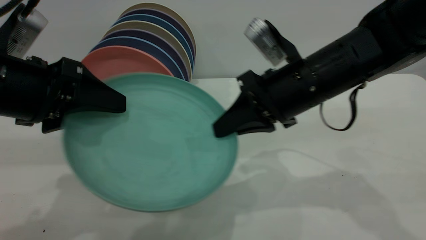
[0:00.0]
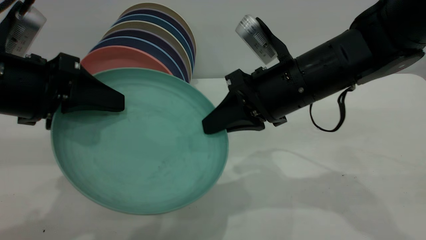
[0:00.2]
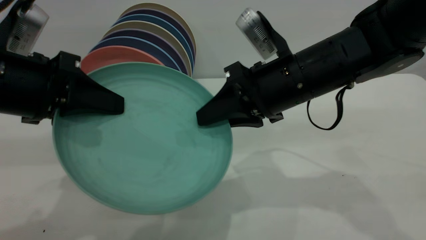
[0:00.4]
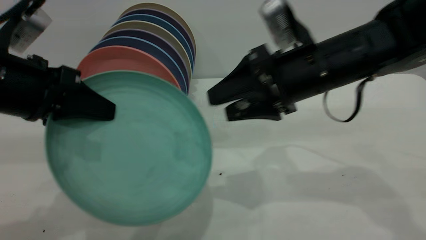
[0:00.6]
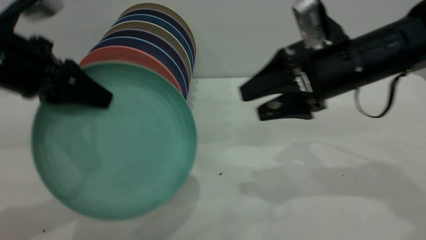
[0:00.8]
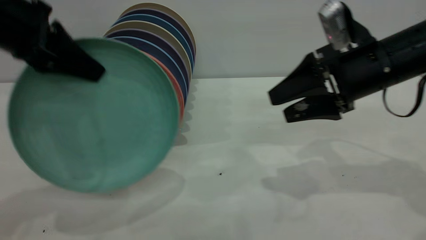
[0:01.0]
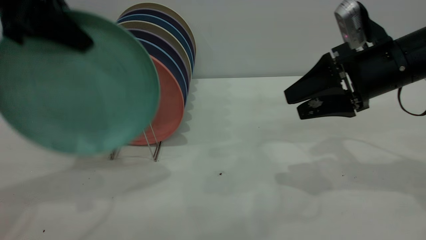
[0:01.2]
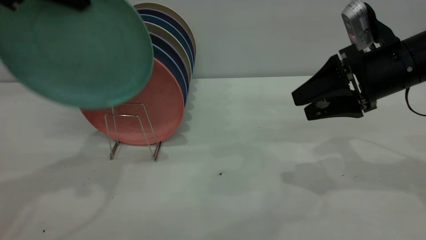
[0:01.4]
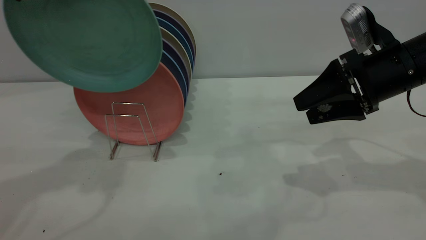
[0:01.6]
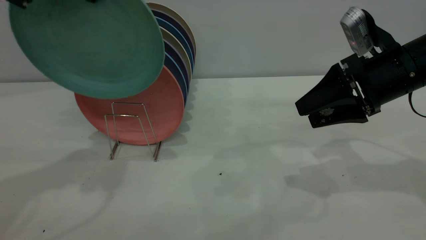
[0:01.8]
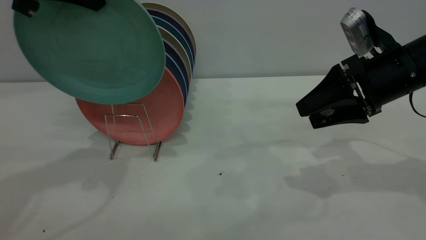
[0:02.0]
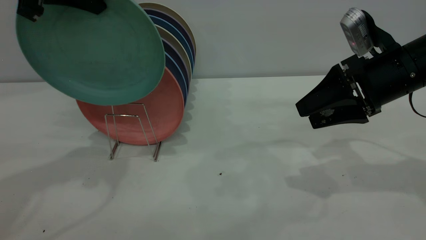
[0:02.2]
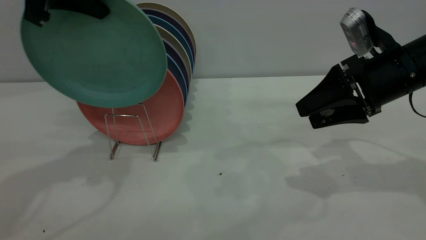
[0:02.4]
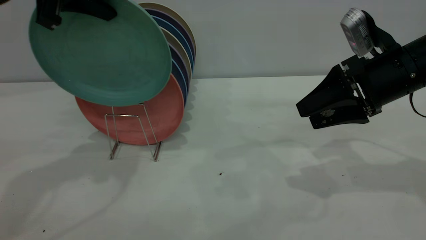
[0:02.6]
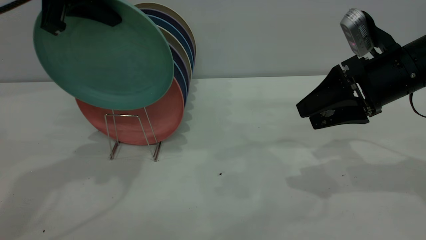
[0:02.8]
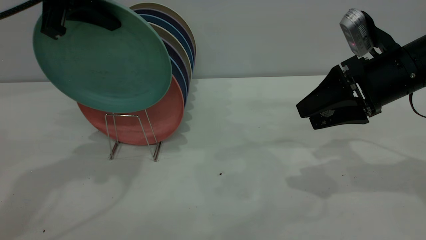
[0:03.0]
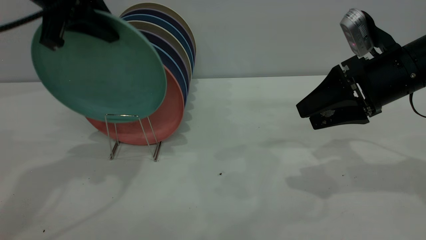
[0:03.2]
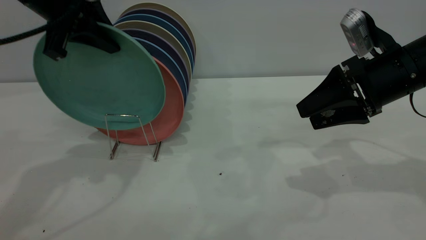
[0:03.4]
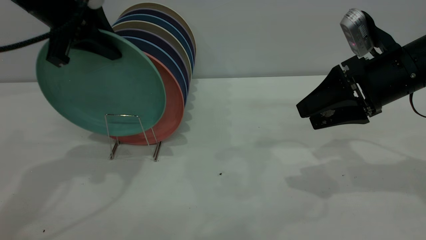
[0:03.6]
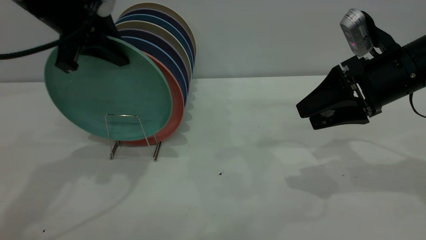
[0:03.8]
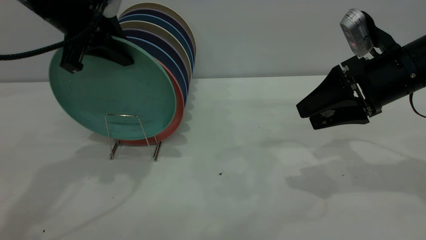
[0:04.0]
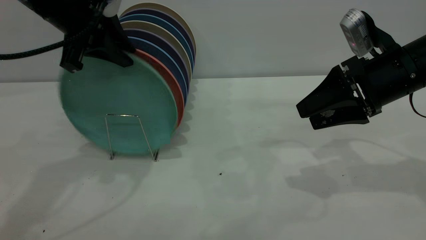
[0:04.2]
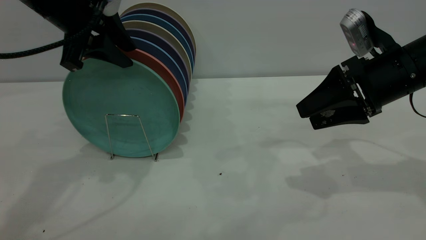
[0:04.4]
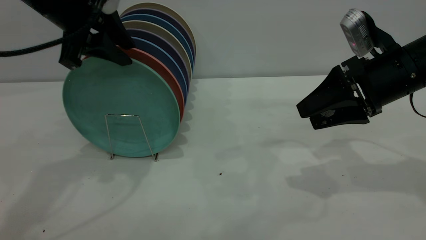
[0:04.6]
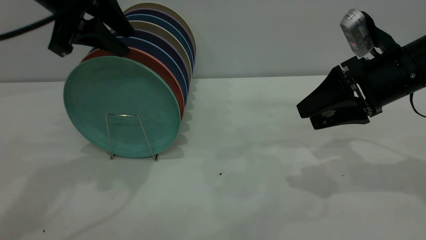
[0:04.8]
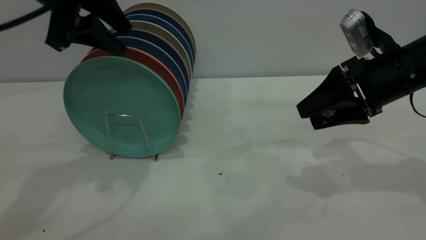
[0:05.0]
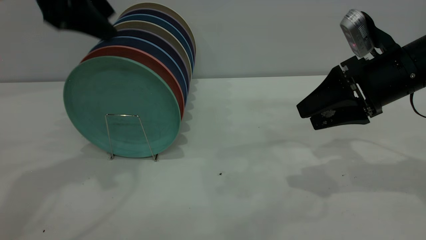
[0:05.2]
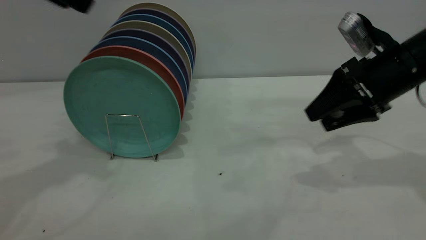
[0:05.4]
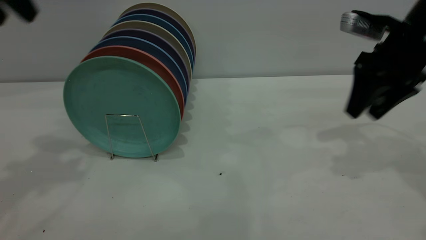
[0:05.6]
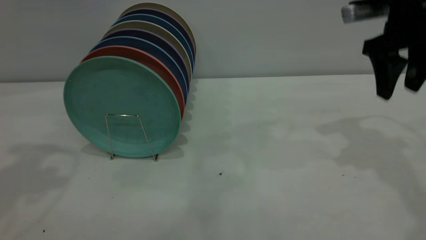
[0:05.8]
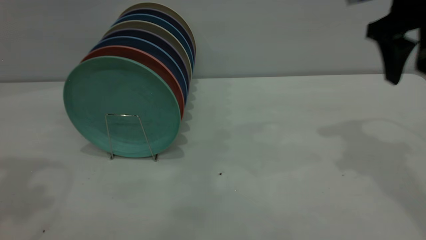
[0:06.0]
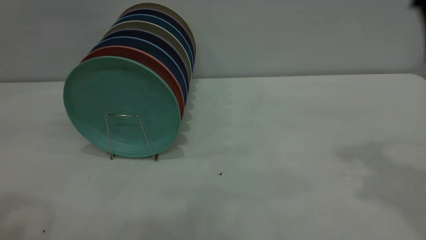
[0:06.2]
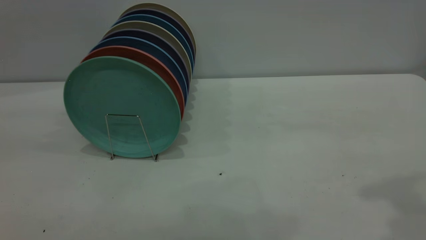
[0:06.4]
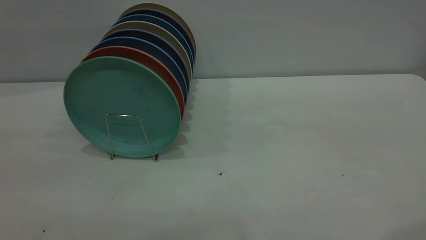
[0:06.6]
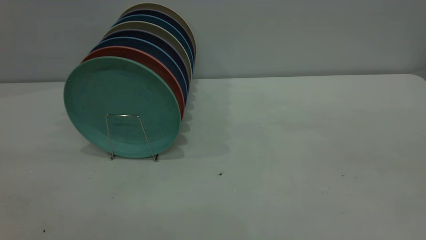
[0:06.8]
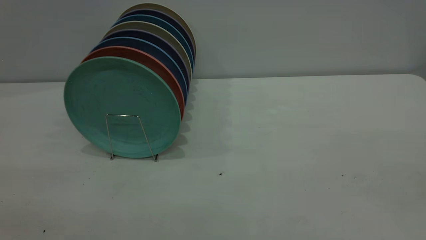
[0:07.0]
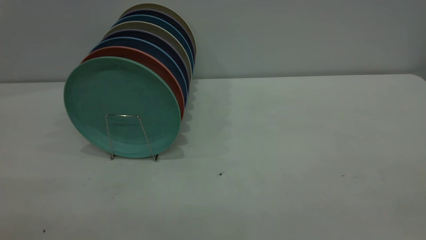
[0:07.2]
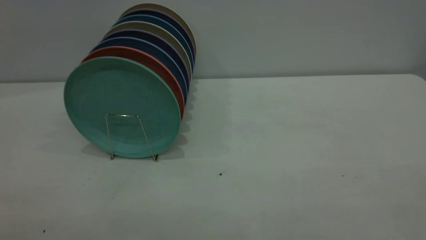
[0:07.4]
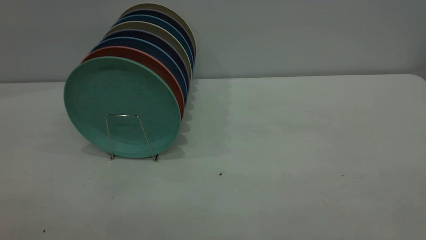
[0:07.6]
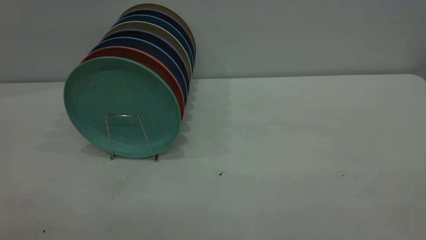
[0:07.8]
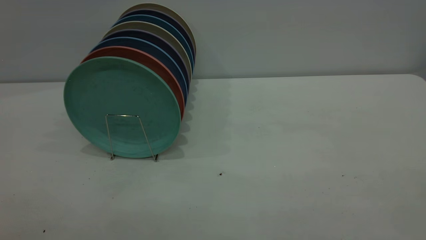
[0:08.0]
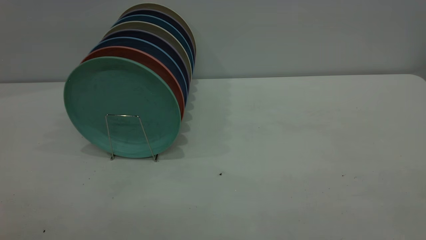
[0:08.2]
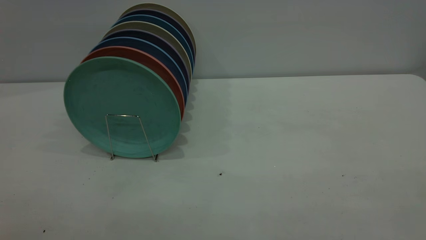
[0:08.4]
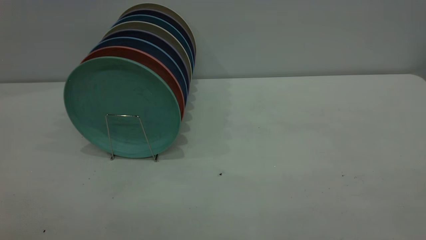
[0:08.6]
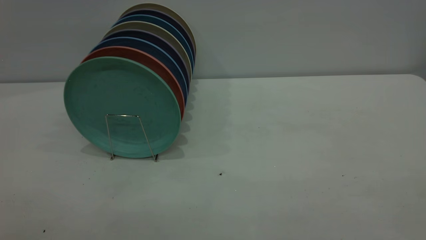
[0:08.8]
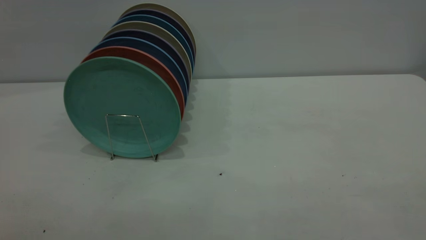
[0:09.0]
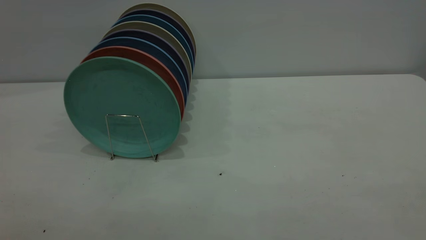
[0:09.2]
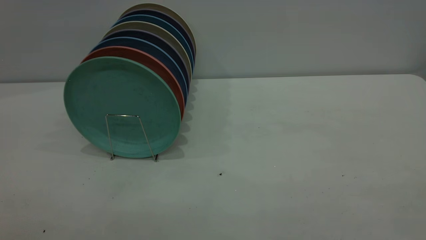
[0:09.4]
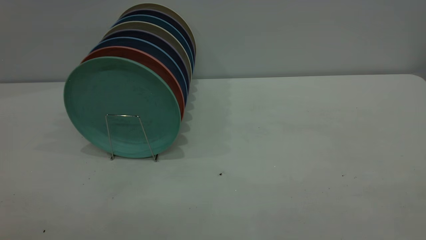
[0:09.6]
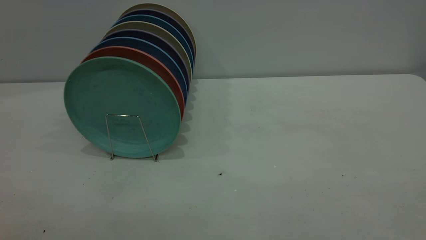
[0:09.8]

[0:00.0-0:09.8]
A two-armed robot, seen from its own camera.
Task of the whole recording: the right gripper grasp the green plate, the right gripper pass the green plate to the left gripper, and the left gripper place the green plate on the plate rack.
Step, 0:00.6 to 0:05.0: Place the plate on the shelf.
0:00.0 to 0:01.4: The right gripper shifts some 15 cm to the right, and opens up; the left gripper shifts about 20 cm upward and forward, and closes up.
0:01.4 to 0:02.8: The left gripper moves about 5 cm.
0:02.8 to 0:04.2: The left gripper changes place by approximately 5 cm, and opens up.
0:04.2 to 0:05.6: The left gripper goes approximately 15 cm upward, to the left and backward, and opens its fingers; the right gripper changes place by roughly 5 cm.
0:05.6 to 0:07.0: The left gripper moves backward, approximately 35 cm. Meanwhile the right gripper travels backward and upward by roughly 40 cm.
